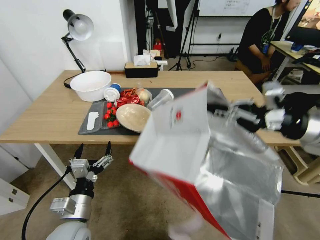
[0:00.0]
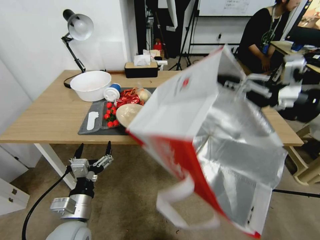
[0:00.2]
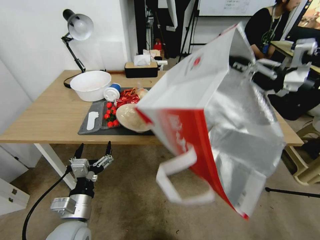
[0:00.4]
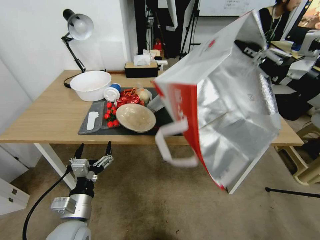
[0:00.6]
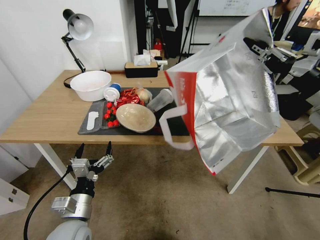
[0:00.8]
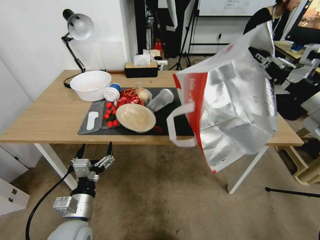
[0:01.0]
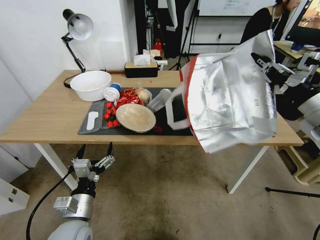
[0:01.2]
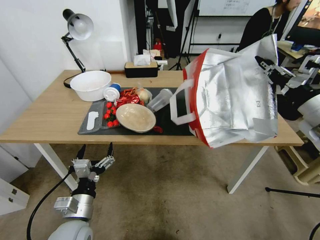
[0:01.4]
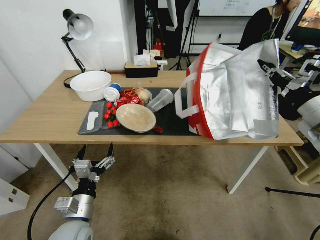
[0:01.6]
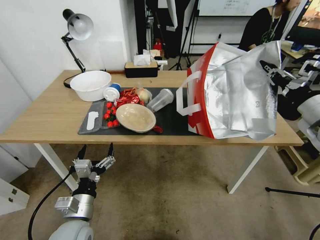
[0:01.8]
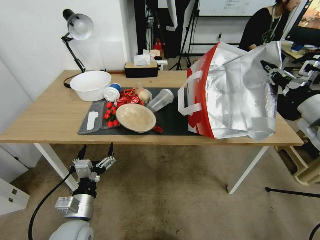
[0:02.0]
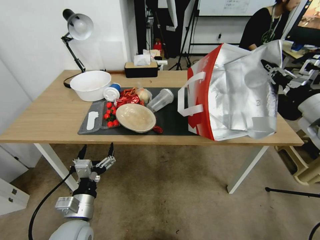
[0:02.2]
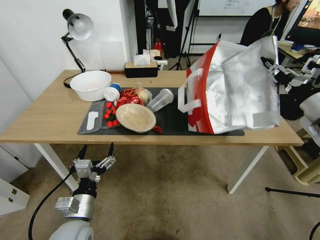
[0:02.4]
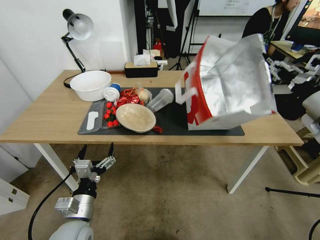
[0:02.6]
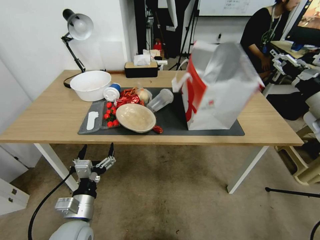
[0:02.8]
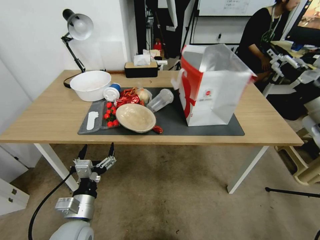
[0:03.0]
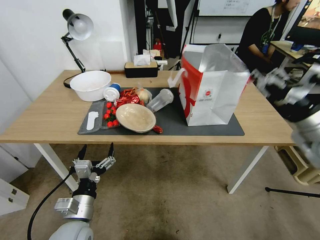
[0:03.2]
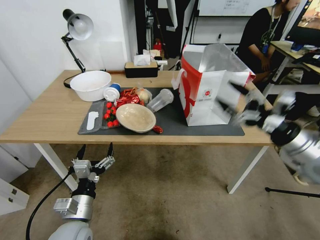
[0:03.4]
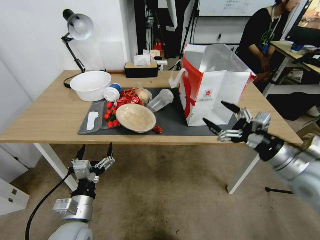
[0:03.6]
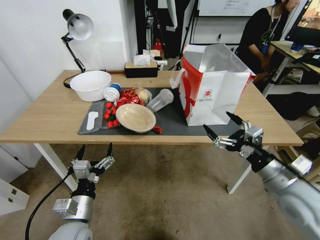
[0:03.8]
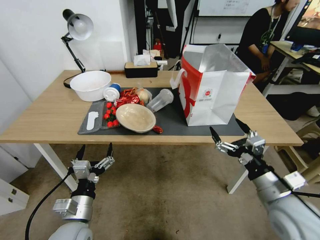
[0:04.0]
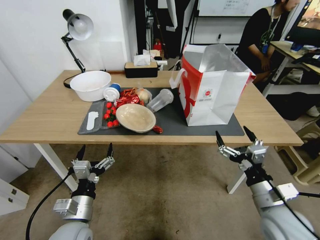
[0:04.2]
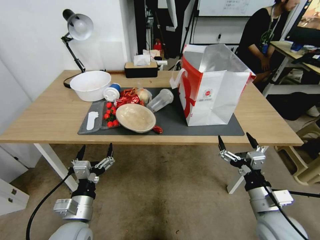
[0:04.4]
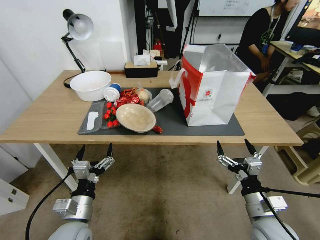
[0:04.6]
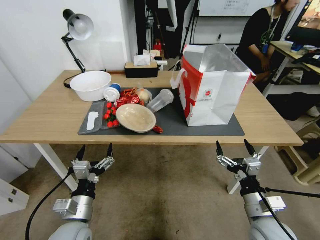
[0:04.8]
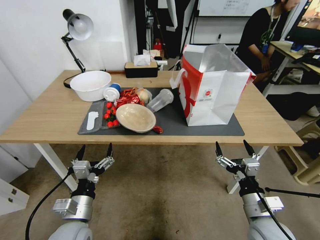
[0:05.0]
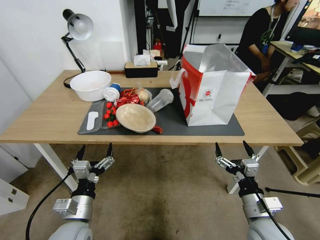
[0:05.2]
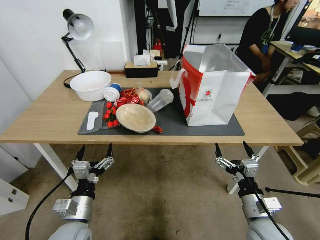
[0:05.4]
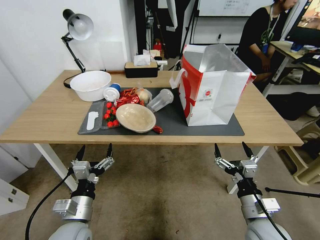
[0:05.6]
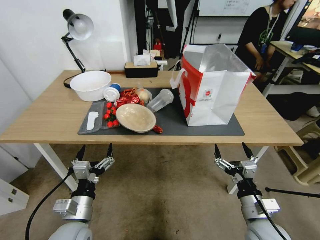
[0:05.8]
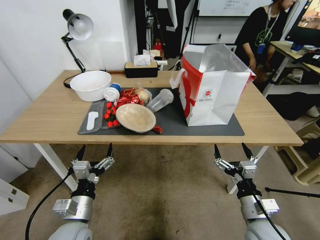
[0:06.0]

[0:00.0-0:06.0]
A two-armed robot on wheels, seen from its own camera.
Task of the whole recording: Pick up the food delivery bag from the floor and place it on the table.
0:00.0 to 0:01.6: The right gripper moves some 10 cm upward and comes back.
0:01.6 to 0:03.0: The right gripper opens its fingers.
0:03.0 to 0:04.4: The right gripper shifts some 30 cm downward, backward and to the left.
0:04.4 to 0:06.0: The grippers move only a little.
